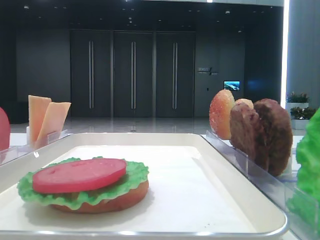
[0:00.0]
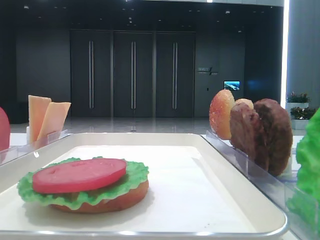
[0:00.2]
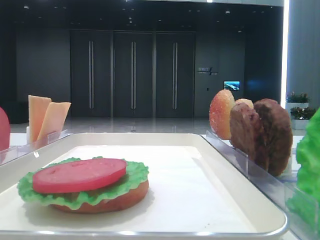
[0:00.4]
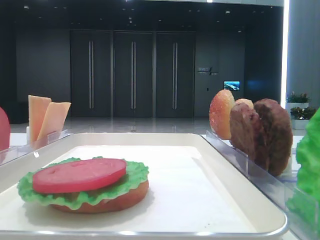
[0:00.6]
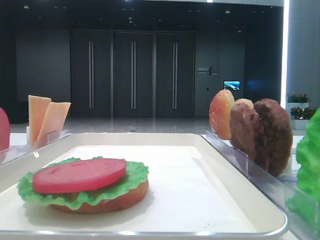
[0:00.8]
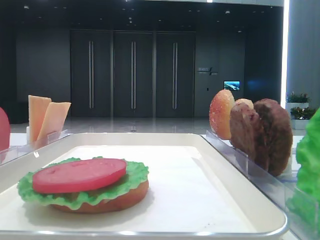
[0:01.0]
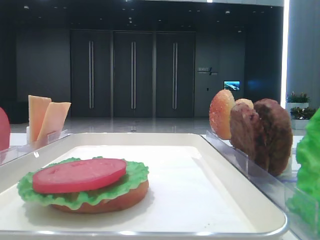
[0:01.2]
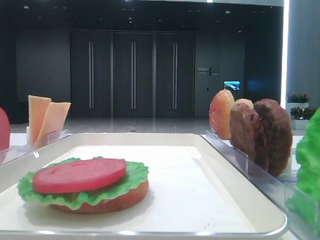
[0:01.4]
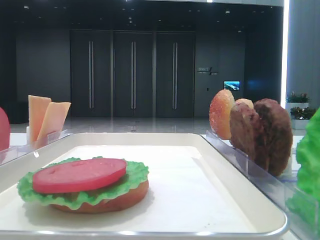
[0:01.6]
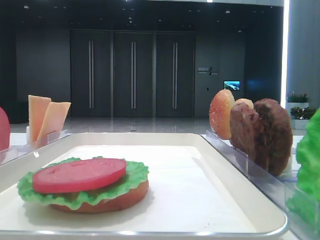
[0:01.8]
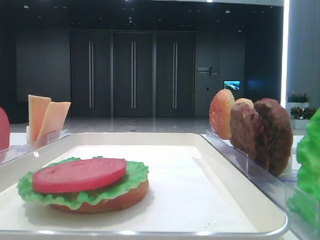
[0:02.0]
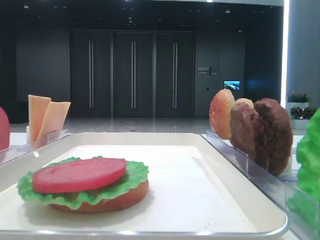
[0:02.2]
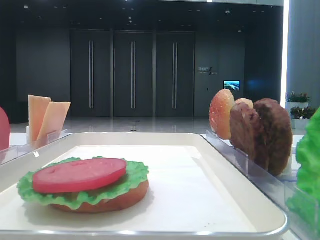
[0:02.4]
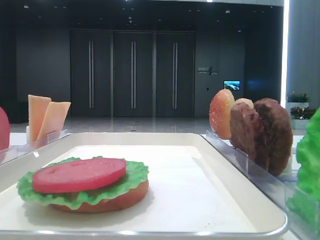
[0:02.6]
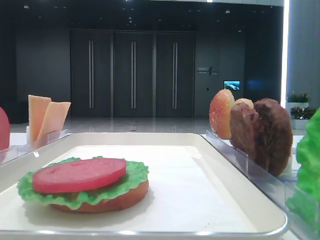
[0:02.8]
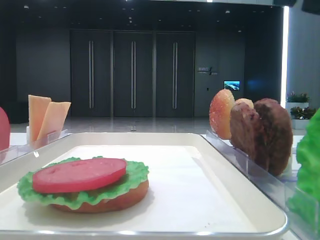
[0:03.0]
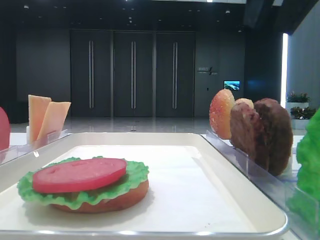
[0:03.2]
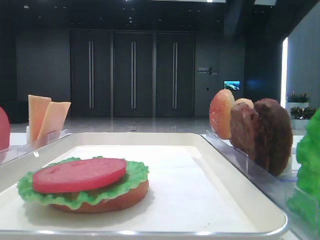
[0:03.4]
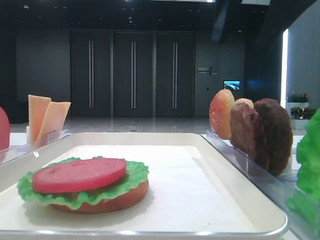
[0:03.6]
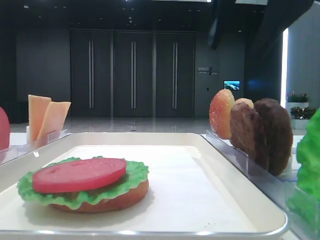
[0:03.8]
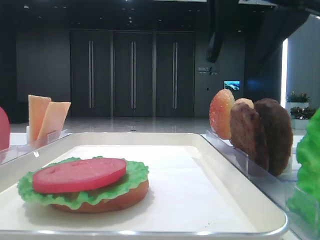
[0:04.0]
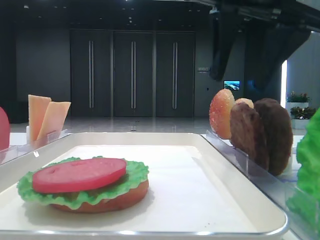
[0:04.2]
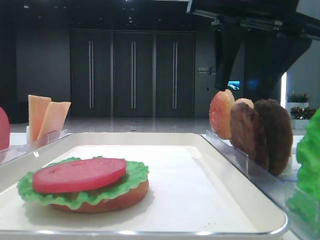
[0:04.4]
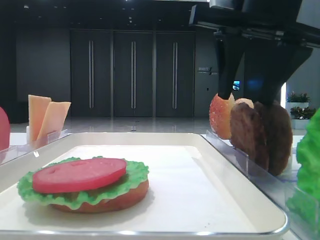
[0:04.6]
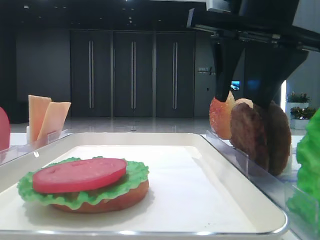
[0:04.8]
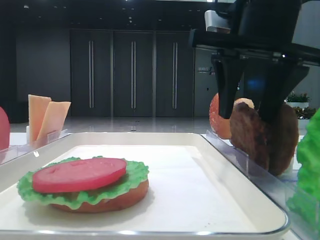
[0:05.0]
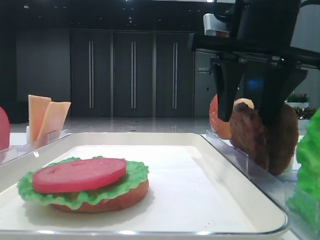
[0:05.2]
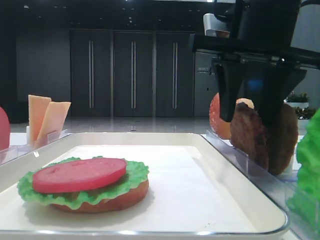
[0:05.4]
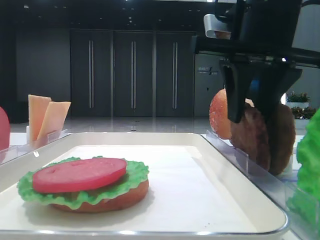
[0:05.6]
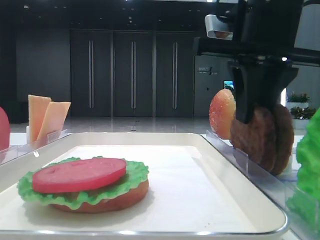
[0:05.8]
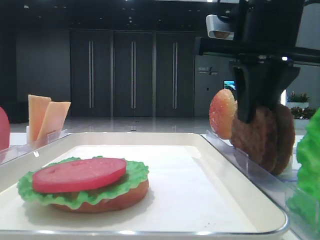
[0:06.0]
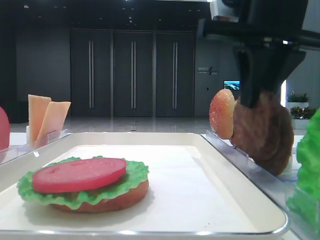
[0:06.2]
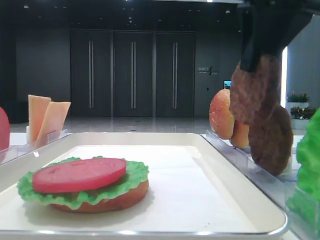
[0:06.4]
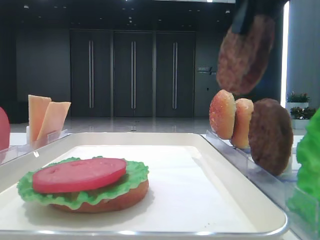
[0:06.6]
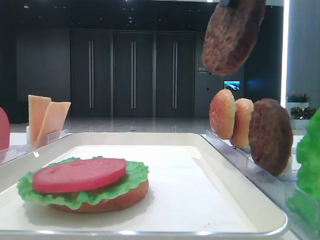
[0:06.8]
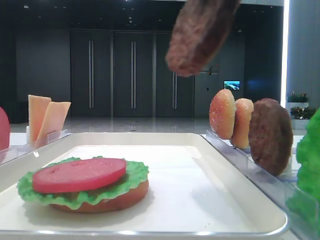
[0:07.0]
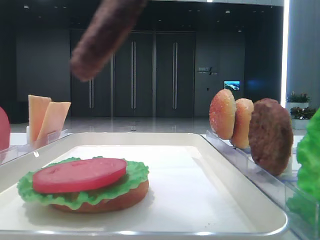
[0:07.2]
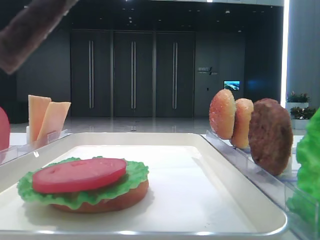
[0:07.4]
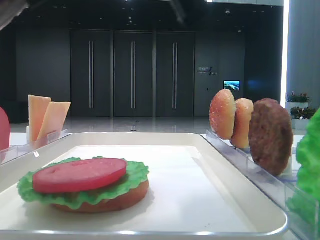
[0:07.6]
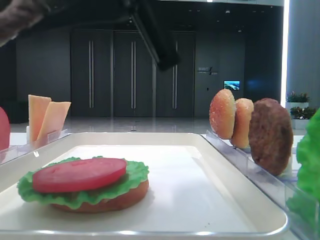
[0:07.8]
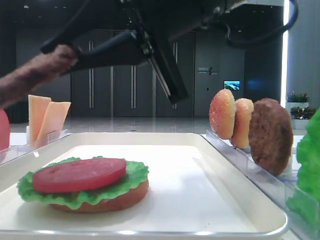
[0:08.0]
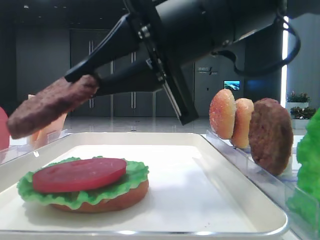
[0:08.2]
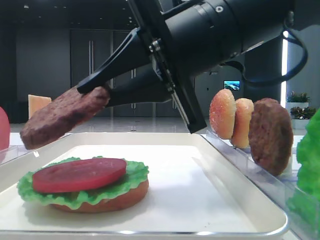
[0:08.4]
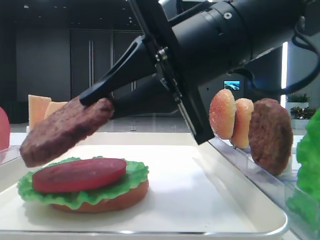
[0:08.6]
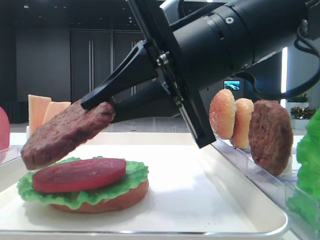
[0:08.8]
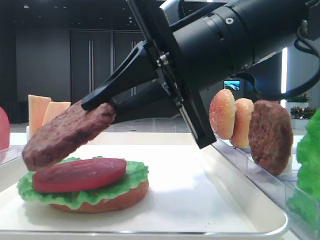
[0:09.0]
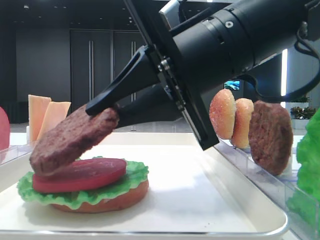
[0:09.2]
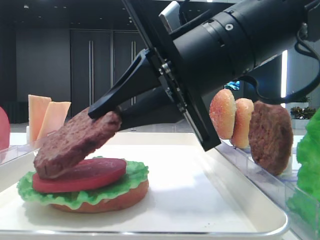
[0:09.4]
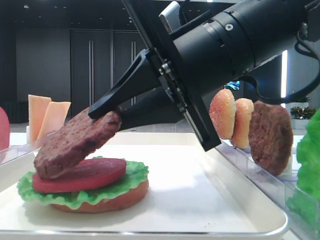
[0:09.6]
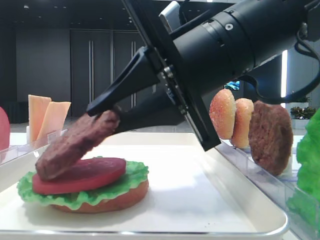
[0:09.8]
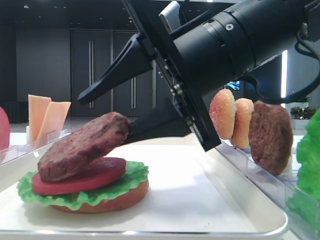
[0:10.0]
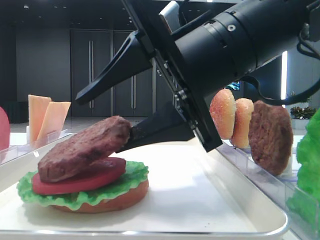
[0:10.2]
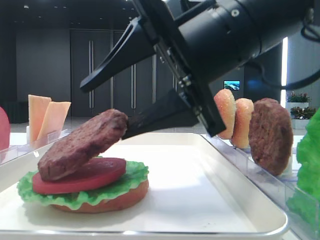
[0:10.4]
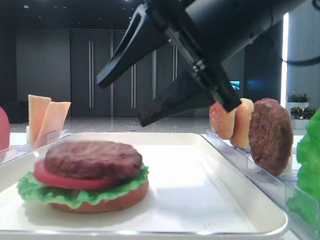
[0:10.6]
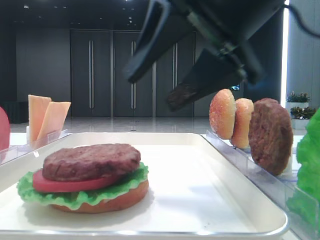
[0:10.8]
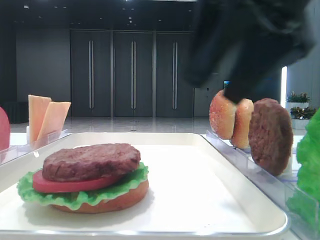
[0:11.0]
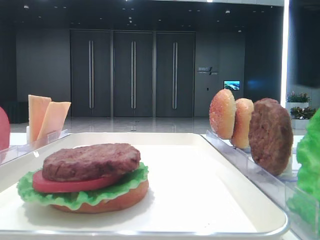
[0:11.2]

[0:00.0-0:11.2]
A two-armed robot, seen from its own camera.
Step, 0:00.0 to 0:05.6: Grab the patty with the right hand.
Step, 0:05.8 to 0:10.4: Place the patty on the tomato slice with the right hand.
0:01.6 to 0:03.2: The right gripper moves to the left and forward, approximately 20 cm.
0:03.2 to 0:04.8: The right gripper shifts roughly 10 cm forward and downward, and opens its fingers.
0:04.8 to 0:06.4: The right gripper closes.
0:06.4 to 0:08.0: The right gripper goes approximately 10 cm to the left and downward.
0:08.0 to 0:09.6: The right gripper shifts by about 5 cm.
0:09.6 to 0:11.2: The right gripper heads to the right and upward, covering some 15 cm, and opens its fingers.

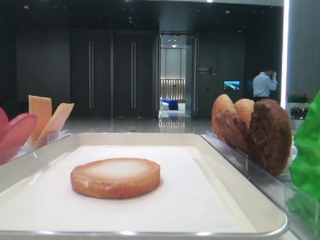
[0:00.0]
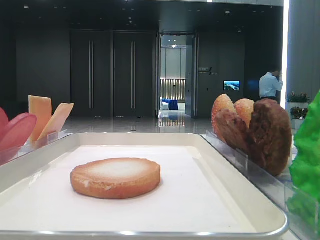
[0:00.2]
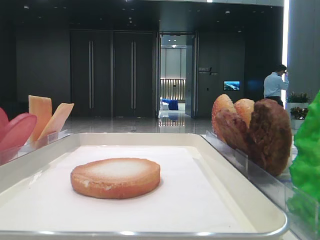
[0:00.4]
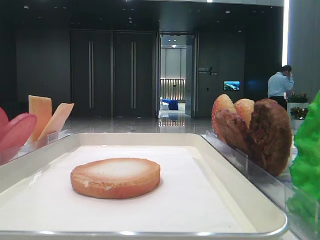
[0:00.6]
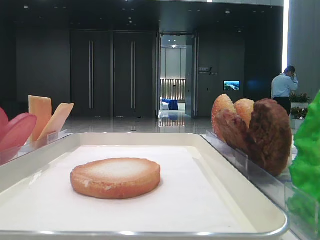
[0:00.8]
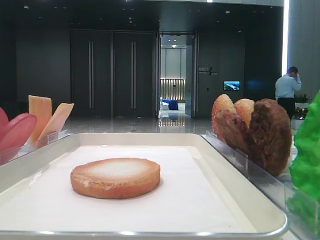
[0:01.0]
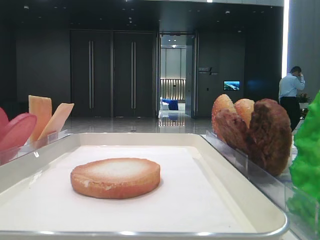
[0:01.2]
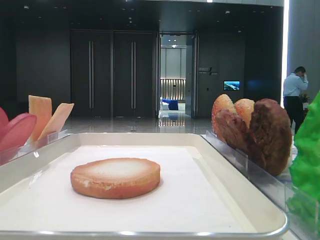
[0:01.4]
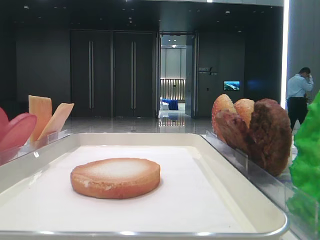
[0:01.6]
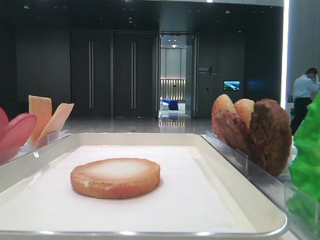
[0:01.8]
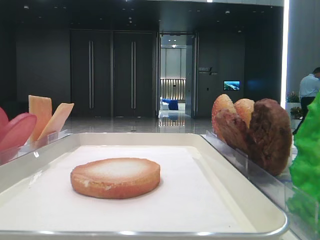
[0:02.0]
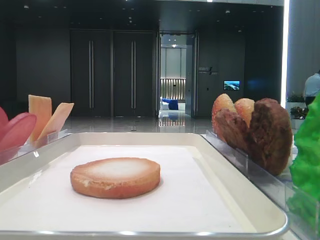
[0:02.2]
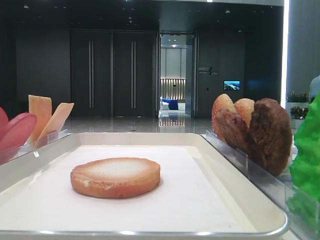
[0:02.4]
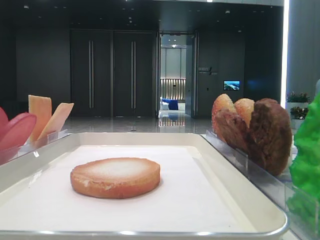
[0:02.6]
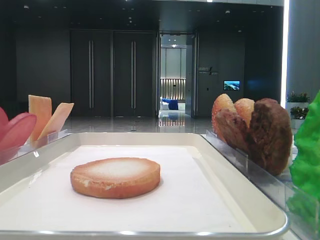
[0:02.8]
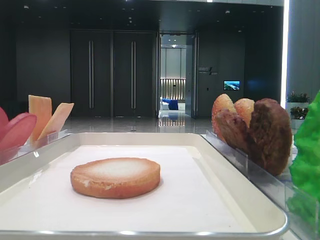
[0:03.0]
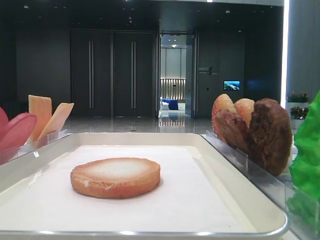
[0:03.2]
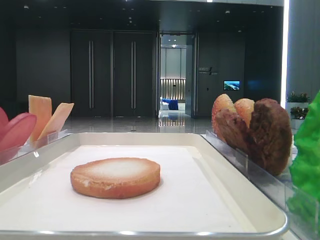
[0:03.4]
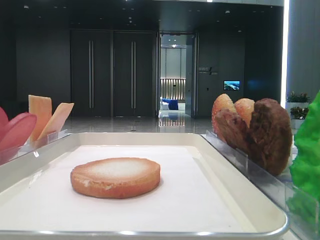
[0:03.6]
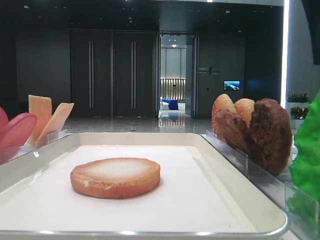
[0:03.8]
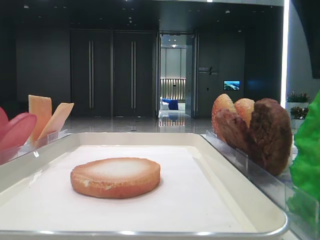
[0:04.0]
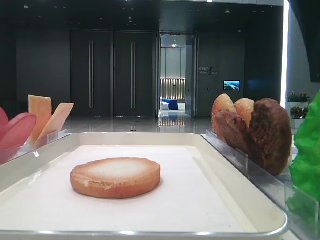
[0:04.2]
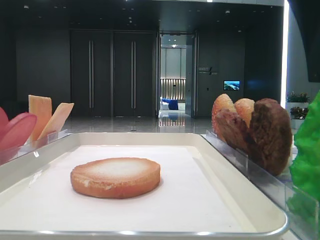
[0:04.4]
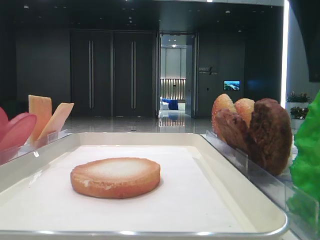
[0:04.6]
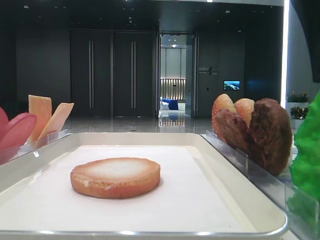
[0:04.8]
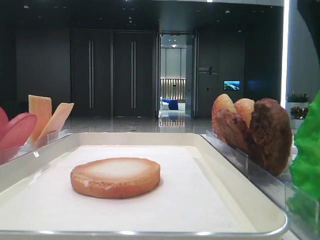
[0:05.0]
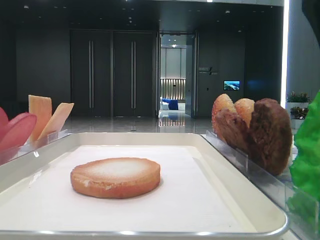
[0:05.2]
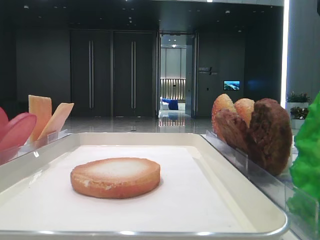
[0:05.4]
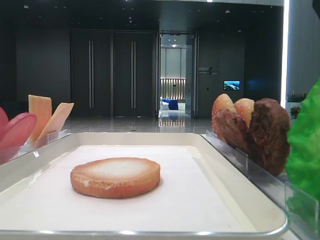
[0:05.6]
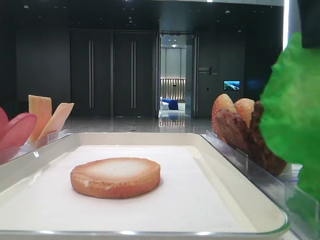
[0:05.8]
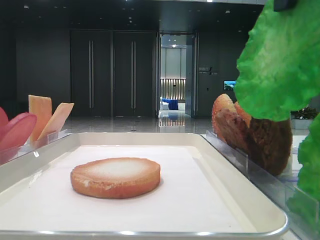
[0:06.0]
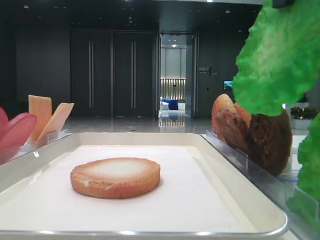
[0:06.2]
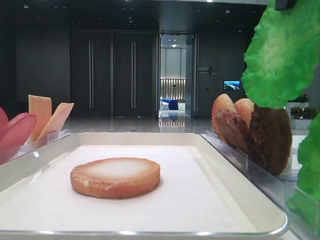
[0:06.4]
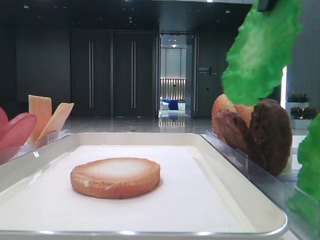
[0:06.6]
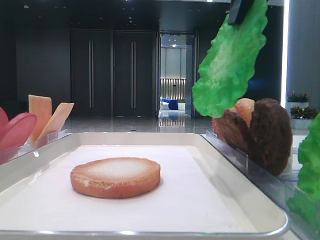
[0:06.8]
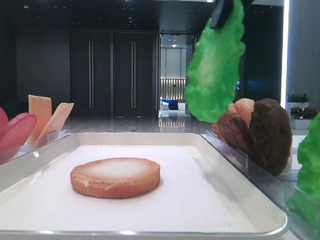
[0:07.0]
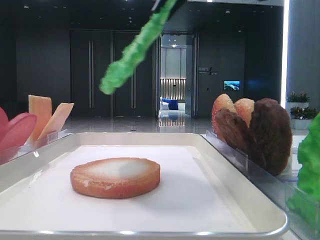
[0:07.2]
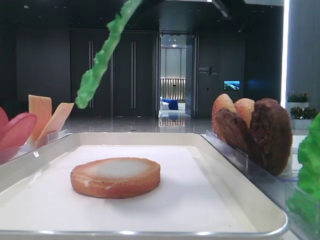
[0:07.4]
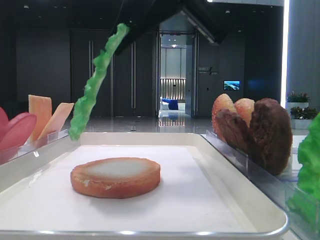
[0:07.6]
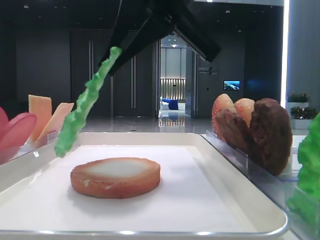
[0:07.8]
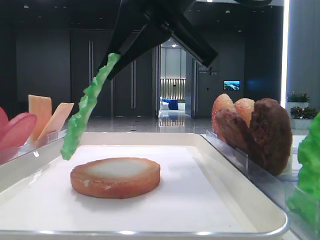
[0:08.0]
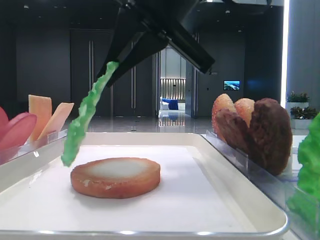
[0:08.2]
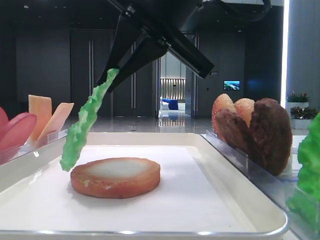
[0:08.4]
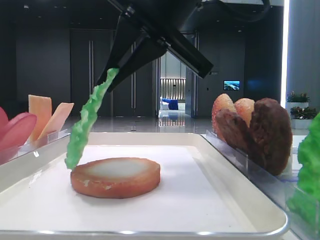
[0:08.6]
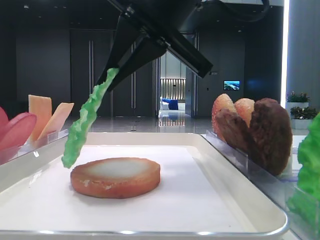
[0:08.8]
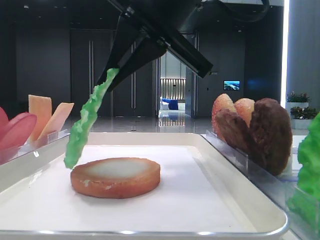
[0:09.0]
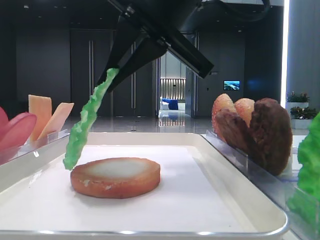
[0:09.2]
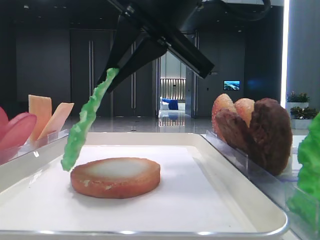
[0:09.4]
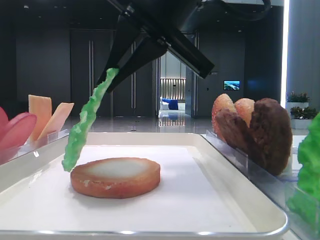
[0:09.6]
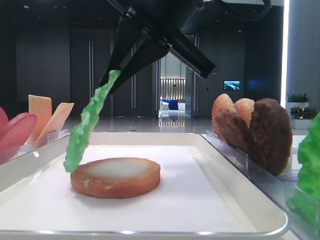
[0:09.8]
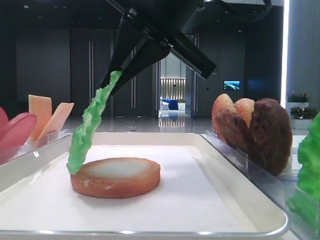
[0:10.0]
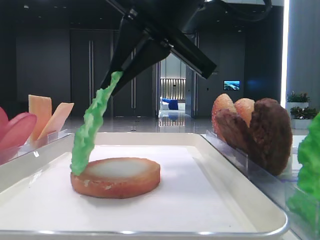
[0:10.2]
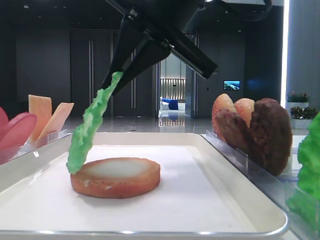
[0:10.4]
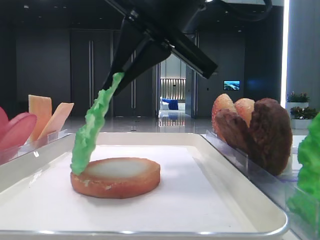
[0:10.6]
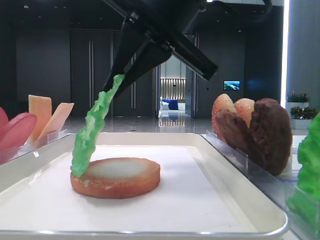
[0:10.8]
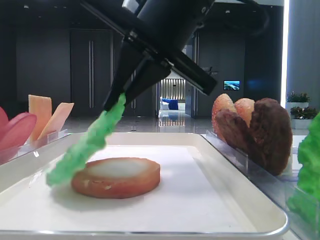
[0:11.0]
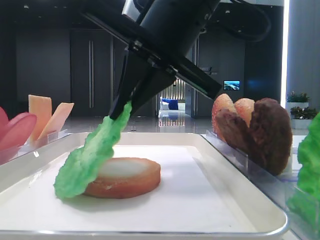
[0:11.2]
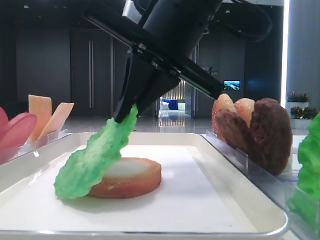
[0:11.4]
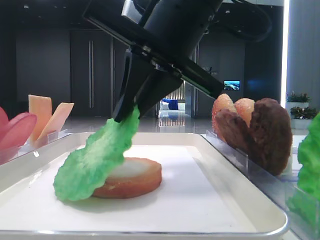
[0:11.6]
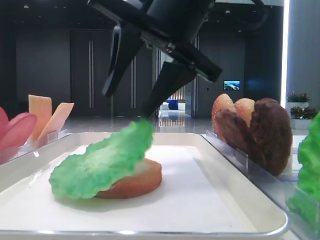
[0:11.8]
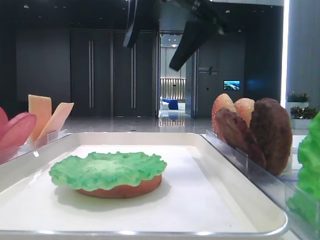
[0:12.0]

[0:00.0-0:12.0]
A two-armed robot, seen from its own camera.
Step, 0:05.6 to 0:11.6: Place the lettuce leaf on the bottom bread with the right hand.
0:01.6 to 0:03.0: The right gripper goes about 20 cm forward and to the left.
0:03.0 to 0:04.4: The right gripper heads to the left, covering some 5 cm.
0:04.4 to 0:06.0: The right gripper travels upward by some 5 cm, and closes up.
0:06.0 to 0:07.6: The right gripper travels to the left and forward by roughly 10 cm.
0:07.6 to 0:09.0: The grippers move only a little.
0:09.0 to 0:10.4: The two grippers keep their place.
0:10.4 to 0:12.0: The right gripper changes place by roughly 5 cm, and opens its fingers.
